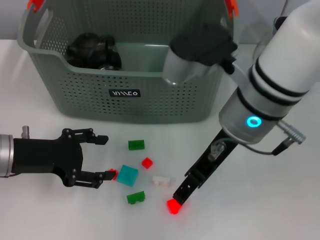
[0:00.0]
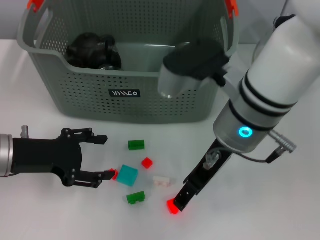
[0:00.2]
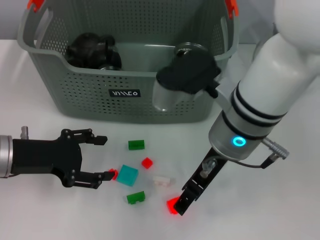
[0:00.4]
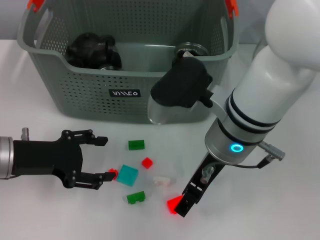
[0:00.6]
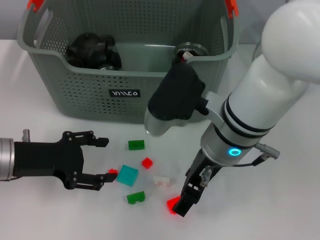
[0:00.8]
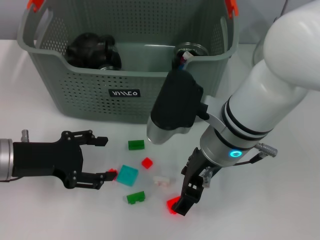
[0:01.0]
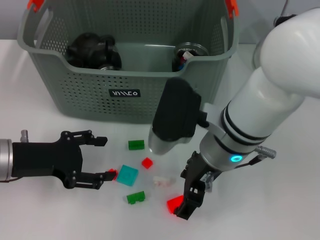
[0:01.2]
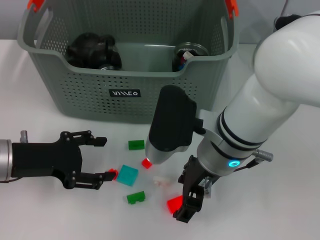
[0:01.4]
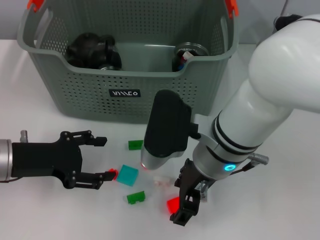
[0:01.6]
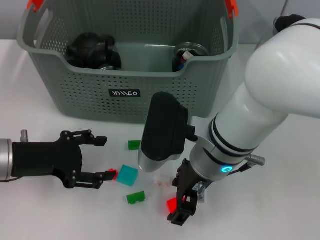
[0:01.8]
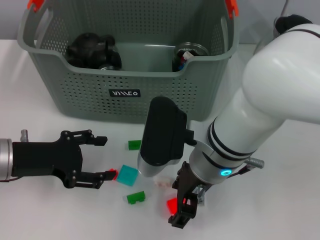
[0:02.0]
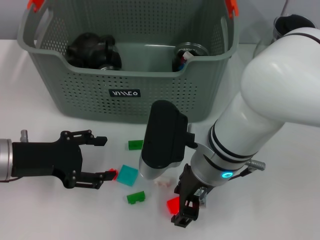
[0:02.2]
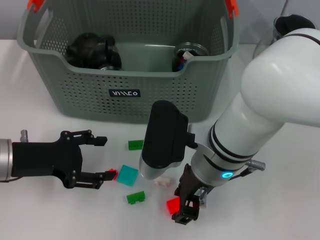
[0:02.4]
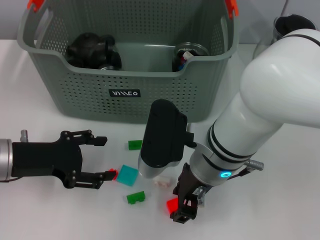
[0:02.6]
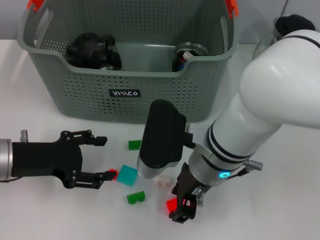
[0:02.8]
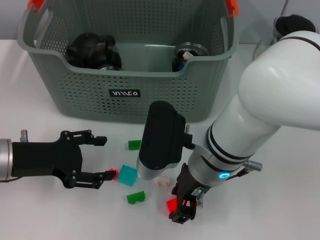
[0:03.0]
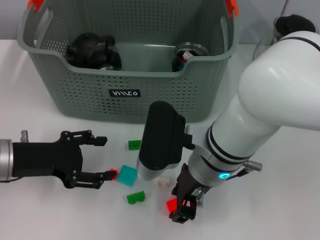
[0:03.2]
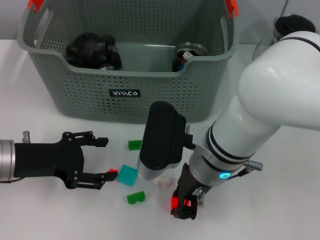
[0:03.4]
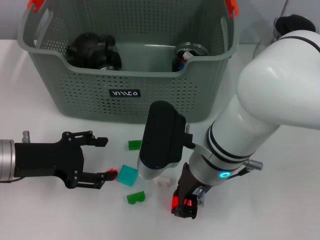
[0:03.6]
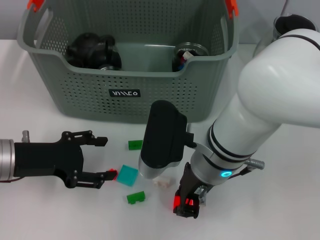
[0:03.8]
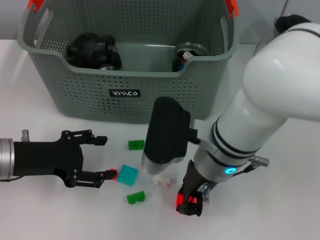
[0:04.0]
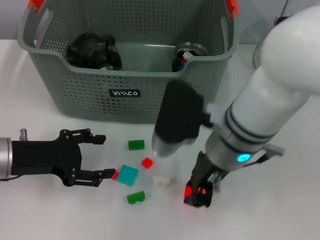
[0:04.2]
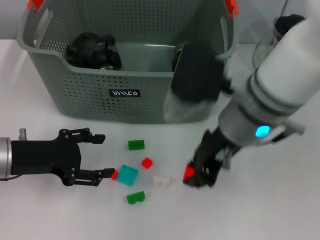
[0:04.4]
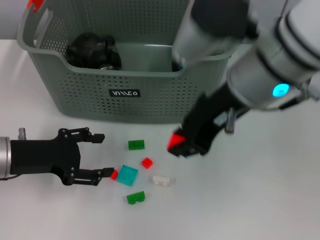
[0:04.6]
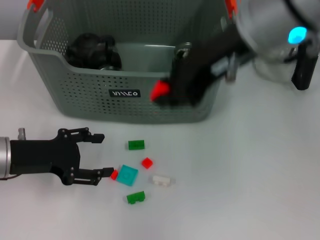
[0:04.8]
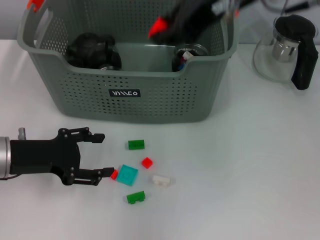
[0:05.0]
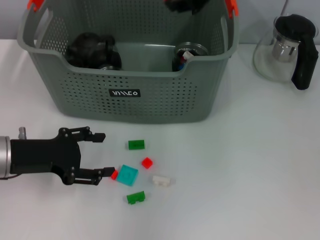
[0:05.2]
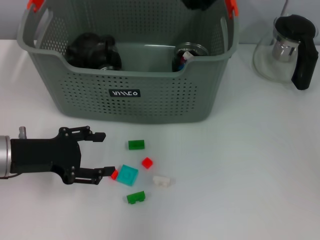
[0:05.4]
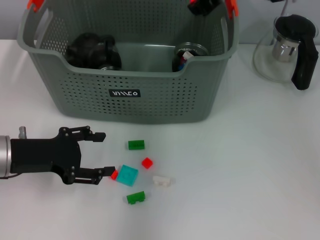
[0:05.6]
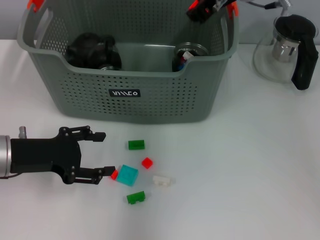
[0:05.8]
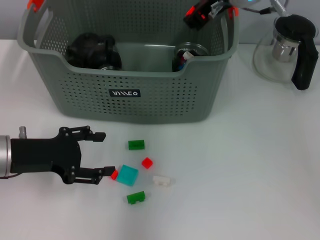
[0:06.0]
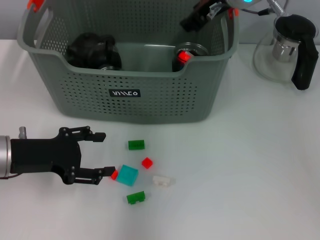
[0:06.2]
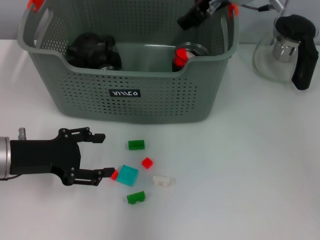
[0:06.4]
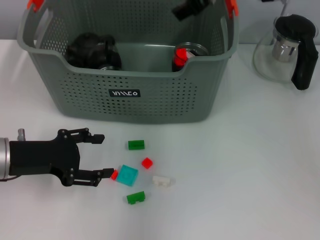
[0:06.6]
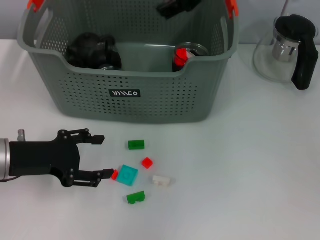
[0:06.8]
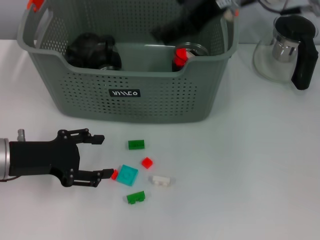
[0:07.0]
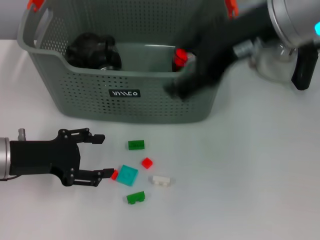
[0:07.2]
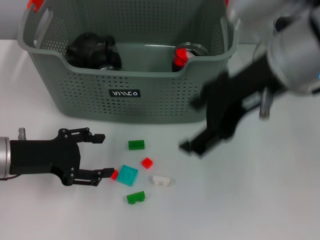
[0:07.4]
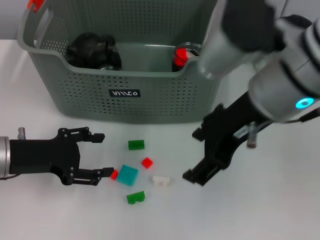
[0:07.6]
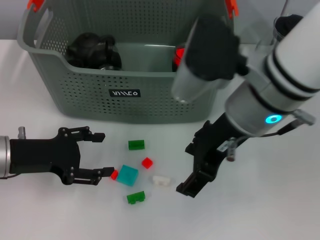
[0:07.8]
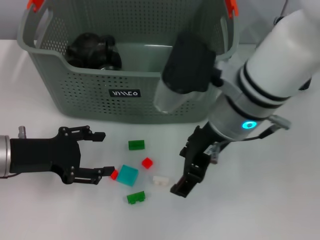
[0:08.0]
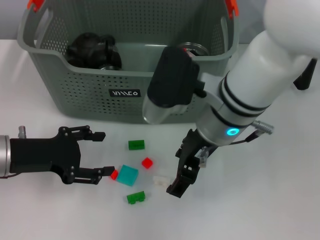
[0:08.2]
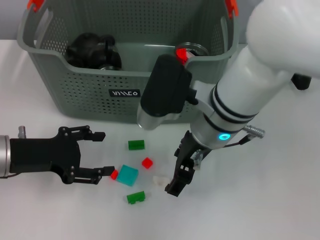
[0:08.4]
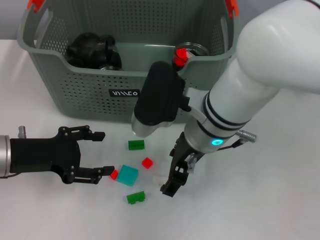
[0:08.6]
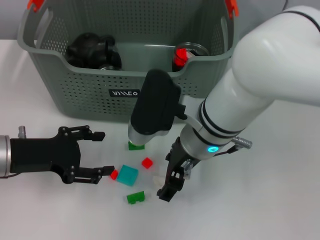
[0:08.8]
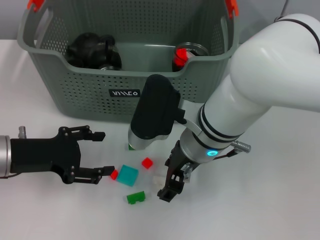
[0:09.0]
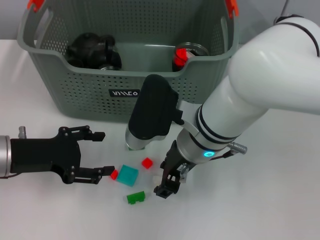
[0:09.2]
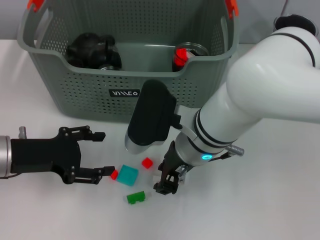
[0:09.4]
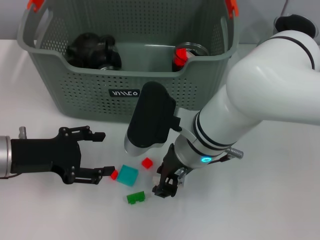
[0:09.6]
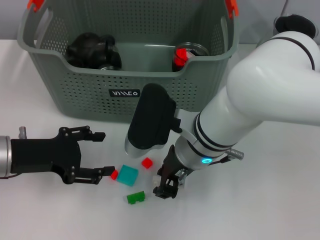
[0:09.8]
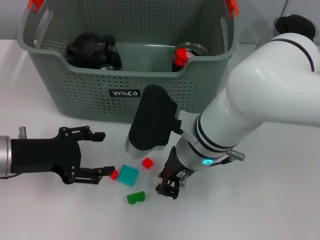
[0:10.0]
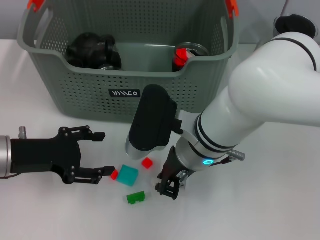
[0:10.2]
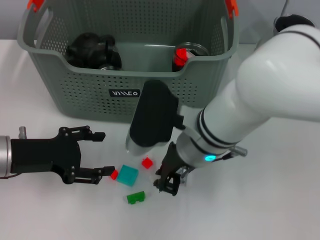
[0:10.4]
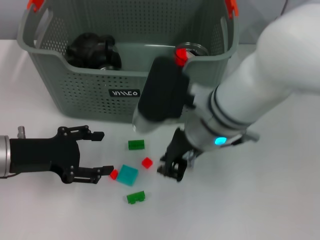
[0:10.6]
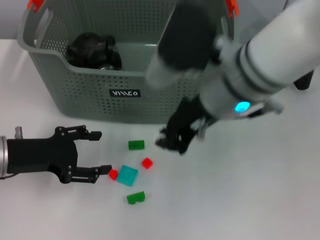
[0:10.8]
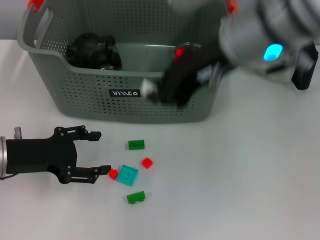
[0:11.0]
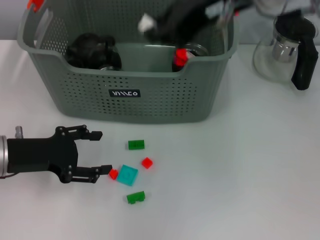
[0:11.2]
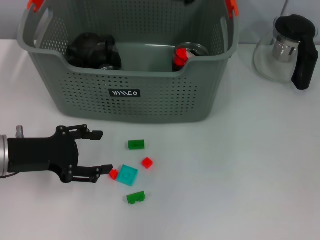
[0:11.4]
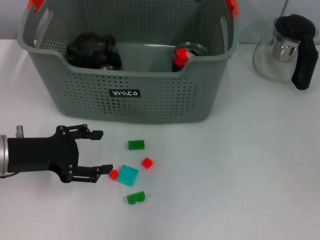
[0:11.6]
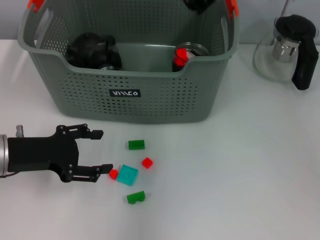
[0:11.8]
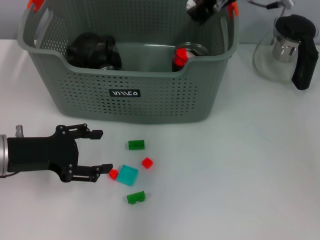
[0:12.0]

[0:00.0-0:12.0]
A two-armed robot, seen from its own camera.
Task of the whole recording: pick up the teacup on the table and place it into the storage bin, pick up the block on the table and place it into the storage bin.
Step, 0:00.0 to 0:03.6: Grasp the orange block with right gripper.
Step, 0:03.8 to 0:06.2: Place the orange block in the storage box with right gripper.
Step, 0:06.4 to 0:10.0: Grasp the white block with right gripper.
0:00.0 to 0:01.6: The right gripper moves downward, some 5 cm.
0:01.6 to 0:03.0: Both grippers stay put.
0:03.0 to 0:04.4: The right gripper is displaced upward by about 10 cm.
0:04.4 to 0:06.0: The right gripper shifts approximately 15 cm forward.
0:06.0 to 0:07.6: The right gripper is displaced backward by about 15 cm, and opens.
0:07.6 to 0:09.0: The right gripper shifts some 15 cm downward and to the left.
0:09.0 to 0:10.4: The right gripper closes up.
0:10.4 to 0:12.0: The right gripper goes some 20 cm forward, upward and to the right.

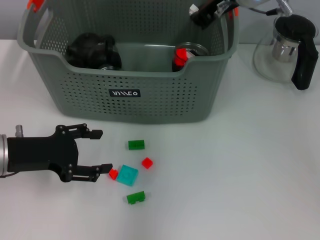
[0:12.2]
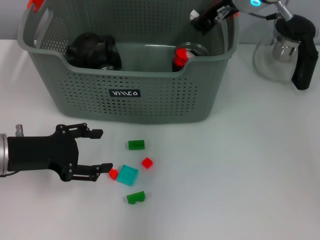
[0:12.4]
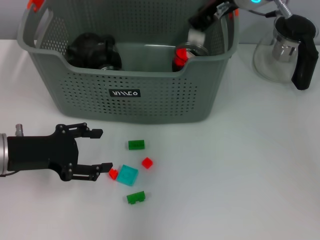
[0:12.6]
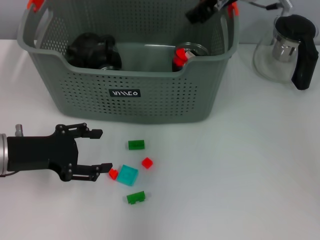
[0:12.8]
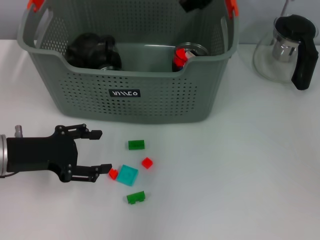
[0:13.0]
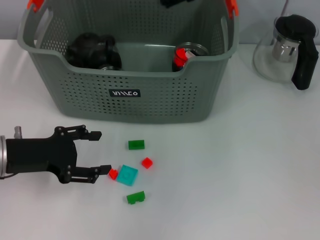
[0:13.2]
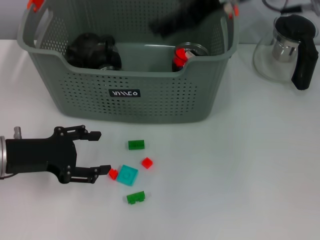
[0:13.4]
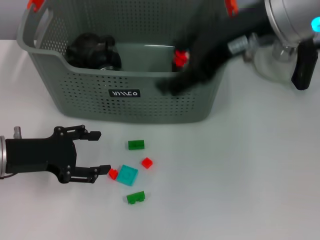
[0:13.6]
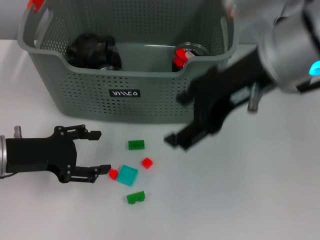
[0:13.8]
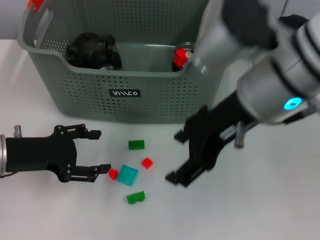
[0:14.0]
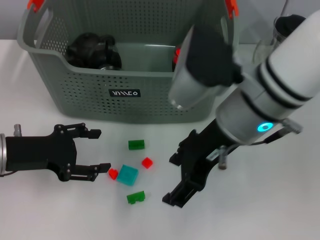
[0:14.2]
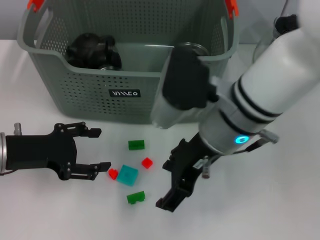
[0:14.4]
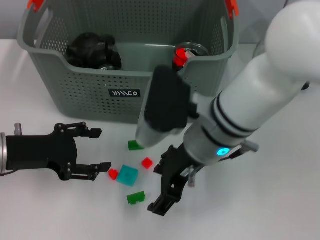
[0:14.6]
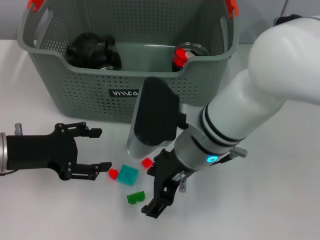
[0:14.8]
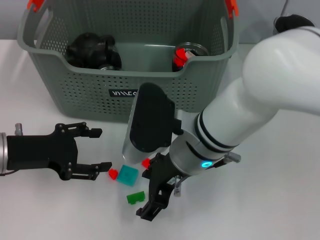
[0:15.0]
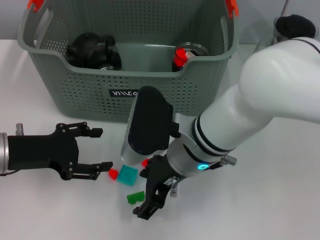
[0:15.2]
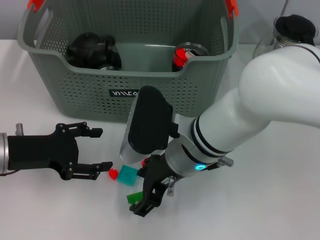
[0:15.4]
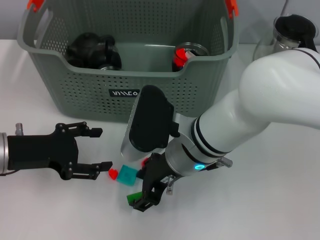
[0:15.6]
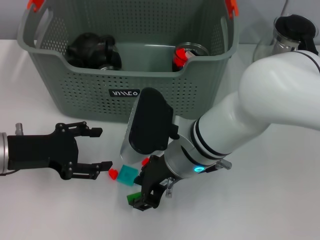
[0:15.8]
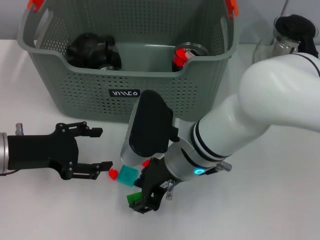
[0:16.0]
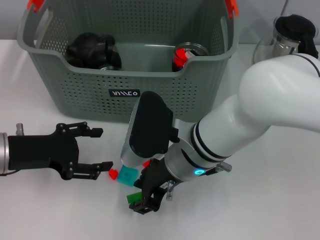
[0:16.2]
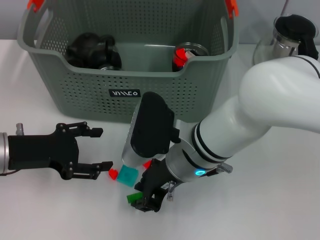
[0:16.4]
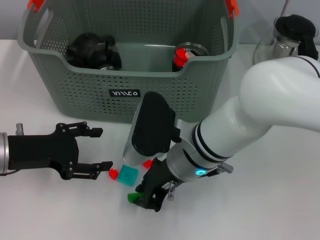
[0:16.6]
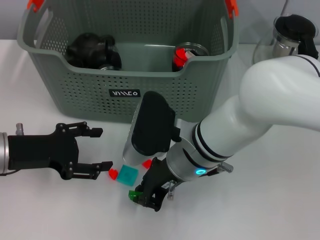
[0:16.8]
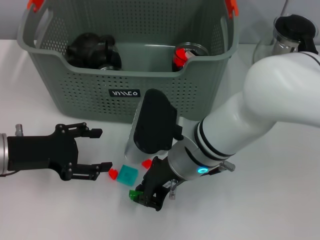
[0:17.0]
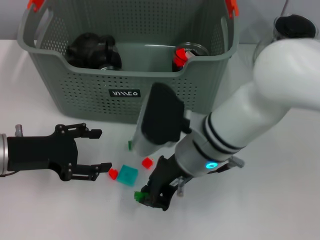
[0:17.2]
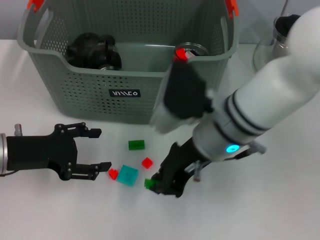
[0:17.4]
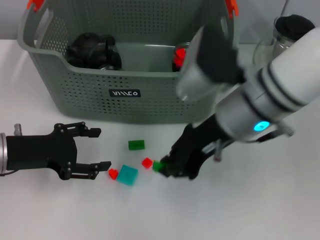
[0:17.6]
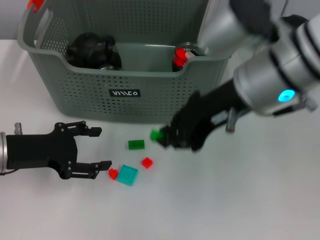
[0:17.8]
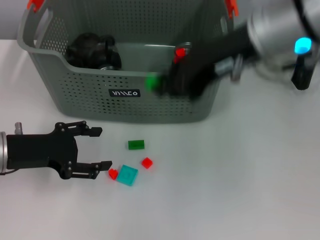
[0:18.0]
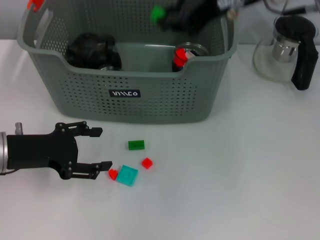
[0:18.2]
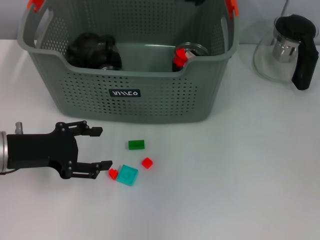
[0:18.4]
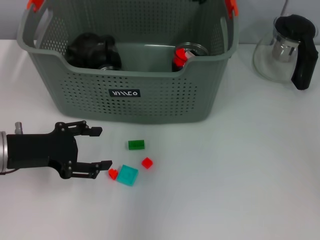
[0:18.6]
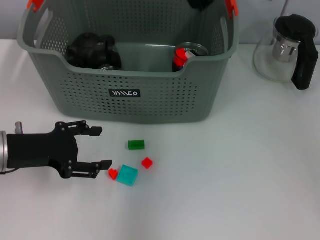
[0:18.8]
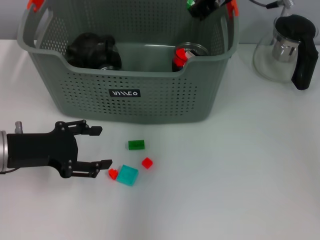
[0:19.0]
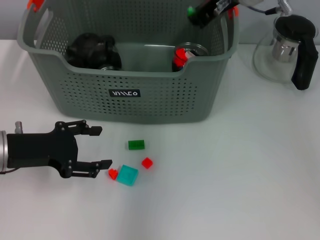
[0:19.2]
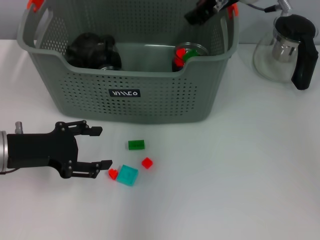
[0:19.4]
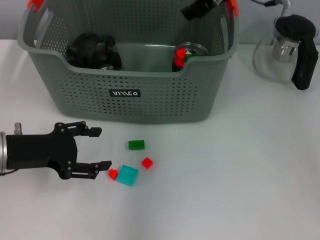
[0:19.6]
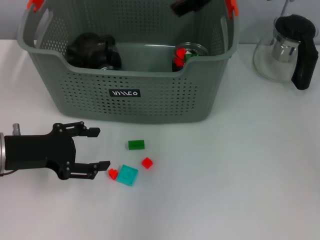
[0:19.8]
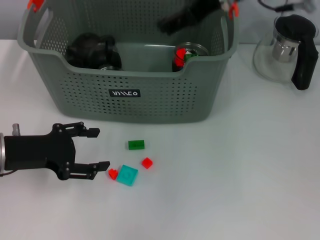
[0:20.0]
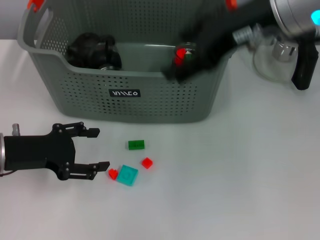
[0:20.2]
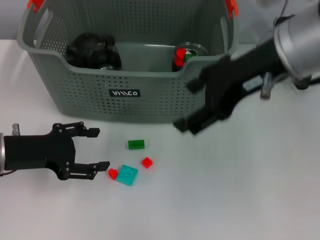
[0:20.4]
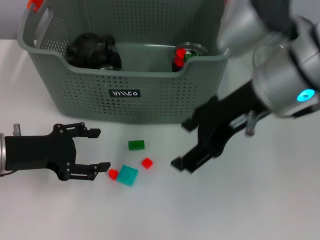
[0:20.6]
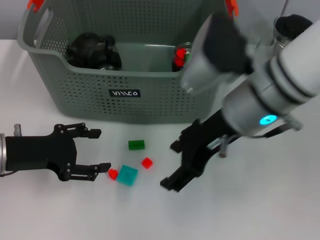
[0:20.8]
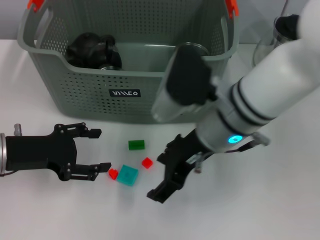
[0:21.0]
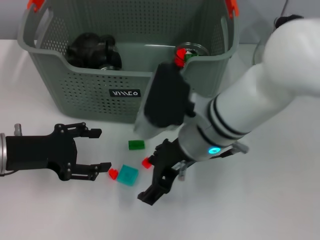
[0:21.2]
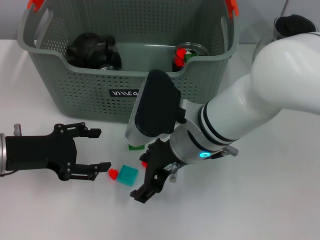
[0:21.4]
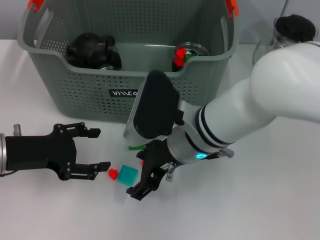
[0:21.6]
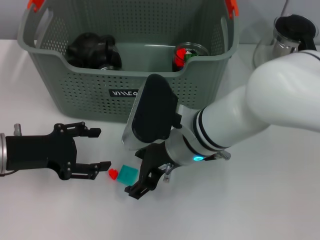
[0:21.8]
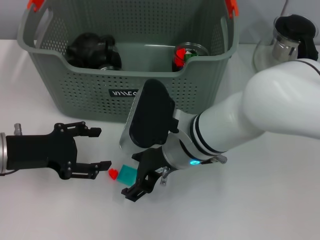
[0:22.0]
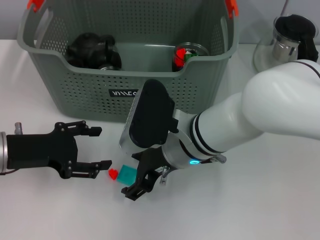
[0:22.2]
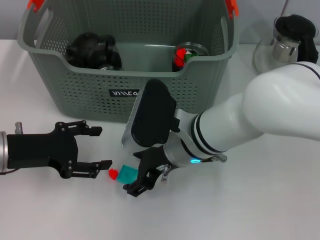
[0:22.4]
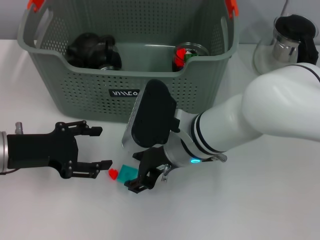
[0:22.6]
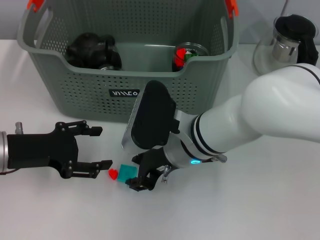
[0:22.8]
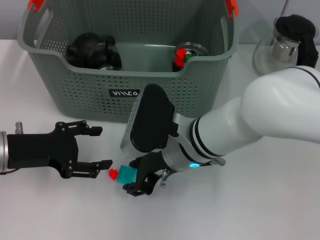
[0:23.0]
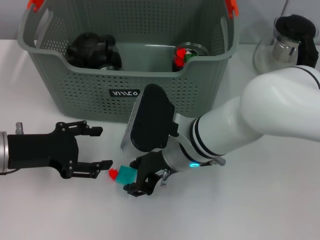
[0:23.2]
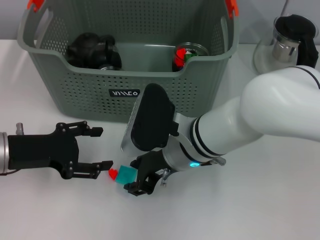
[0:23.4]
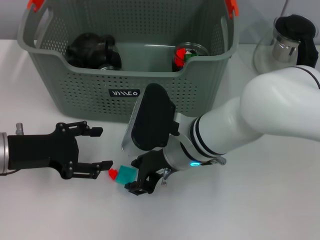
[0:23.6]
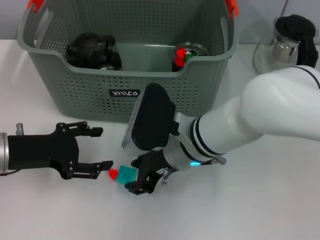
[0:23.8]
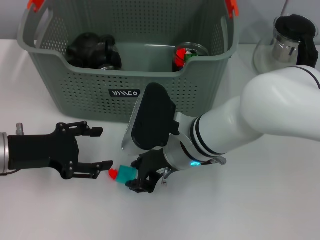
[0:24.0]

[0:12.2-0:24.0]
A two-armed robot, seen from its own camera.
Task of the whole recording: pick up the teacup on the table and place it into the storage bin, pick up the block on the table and place it into the storage bin.
Step, 0:12.8 to 0:16.6: Grasp the green block with right gripper.
Step, 0:16.8 to 0:19.4: Place the green block in the storage box with right gripper.
Step, 0:19.6 to 0:24.0: Grasp the light blue block with right gripper.
0:12.2 to 0:13.6: The right gripper is displaced backward and upward by approximately 15 cm, and opens its fingers.
0:13.6 to 0:15.2: The right gripper is displaced downward and to the left by about 20 cm.
0:15.2 to 0:16.6: The right gripper closes up.
0:16.6 to 0:18.2: The right gripper heads upward, covering some 20 cm.
0:18.2 to 0:19.6: The right gripper travels forward and downward by approximately 10 cm.
0:19.6 to 0:21.0: The right gripper heads backward and downward, covering about 15 cm, and opens up.
0:21.0 to 0:22.6: The right gripper travels downward by approximately 5 cm.
0:22.6 to 0:24.0: The right gripper closes its fingers.
